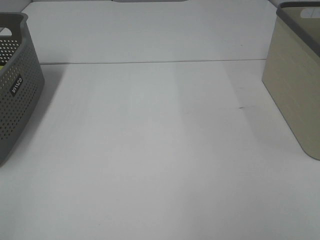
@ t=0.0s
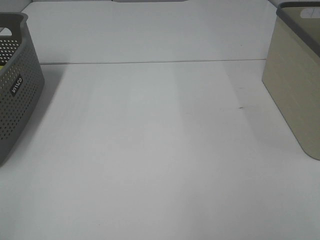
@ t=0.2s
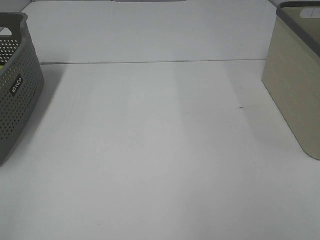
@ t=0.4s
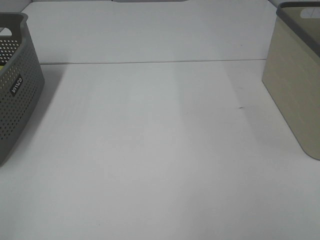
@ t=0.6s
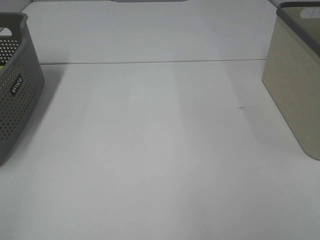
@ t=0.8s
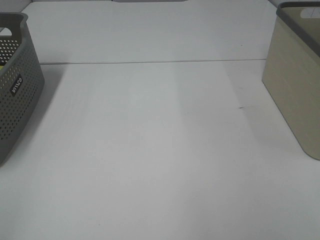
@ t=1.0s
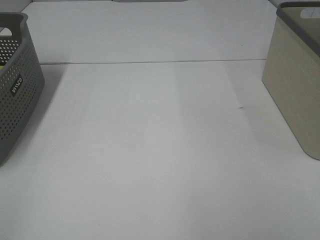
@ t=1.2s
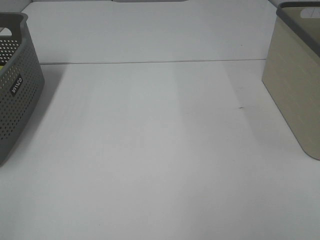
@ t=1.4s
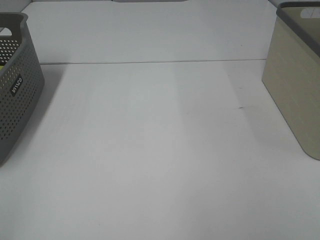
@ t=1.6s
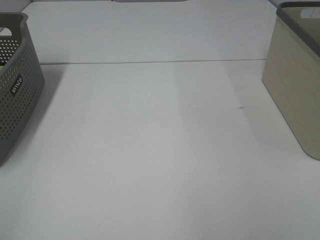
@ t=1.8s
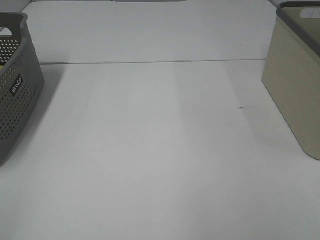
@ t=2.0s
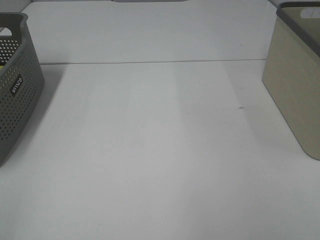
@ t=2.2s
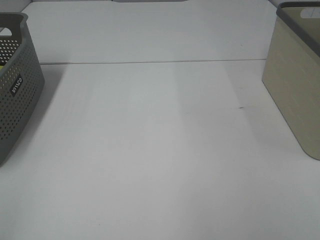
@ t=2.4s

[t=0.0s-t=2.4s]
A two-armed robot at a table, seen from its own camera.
t=1.2s to t=2.4s: Both grippers stay put.
